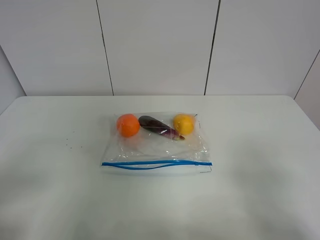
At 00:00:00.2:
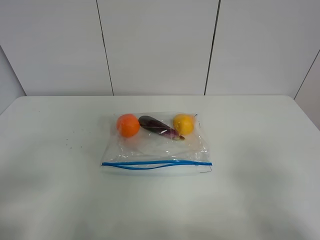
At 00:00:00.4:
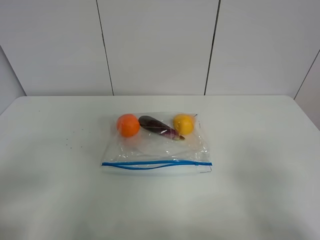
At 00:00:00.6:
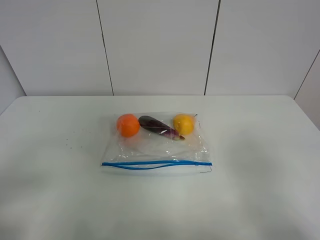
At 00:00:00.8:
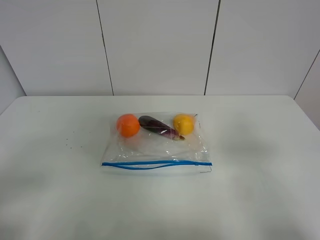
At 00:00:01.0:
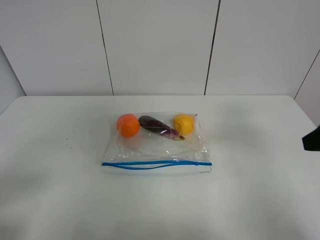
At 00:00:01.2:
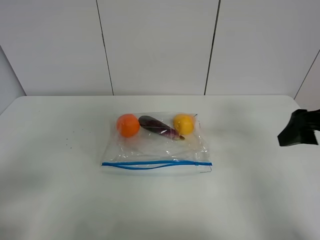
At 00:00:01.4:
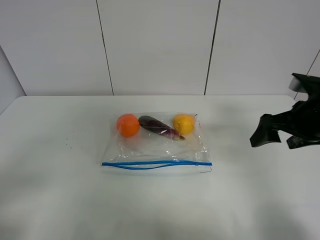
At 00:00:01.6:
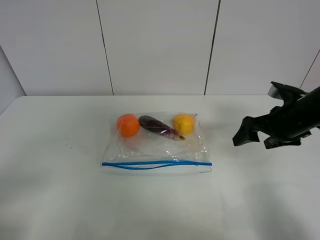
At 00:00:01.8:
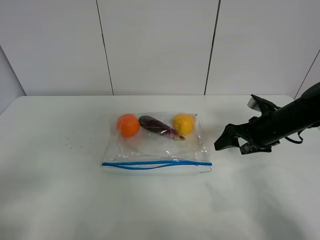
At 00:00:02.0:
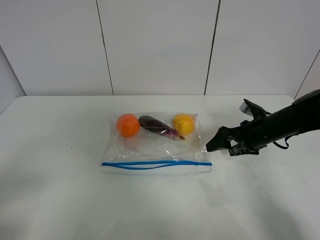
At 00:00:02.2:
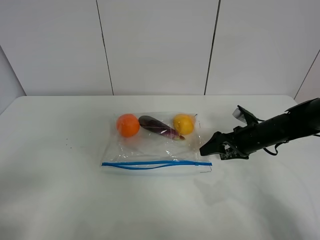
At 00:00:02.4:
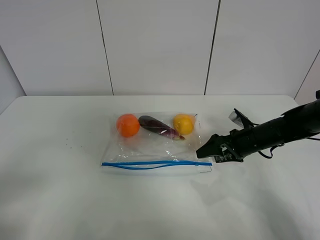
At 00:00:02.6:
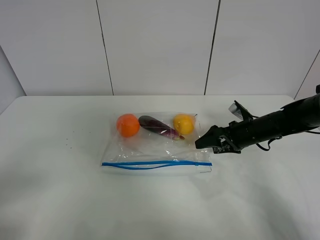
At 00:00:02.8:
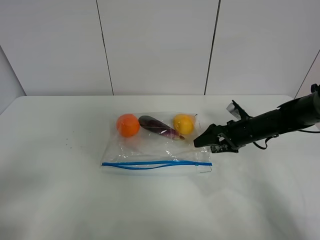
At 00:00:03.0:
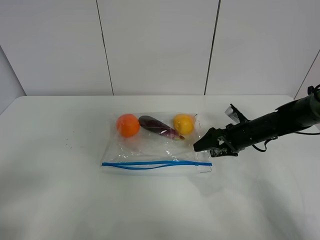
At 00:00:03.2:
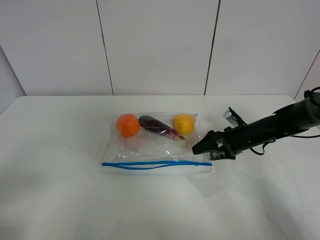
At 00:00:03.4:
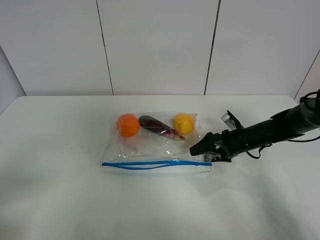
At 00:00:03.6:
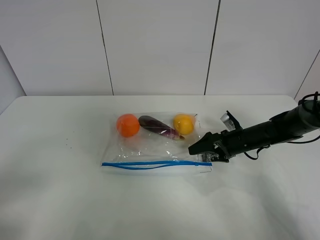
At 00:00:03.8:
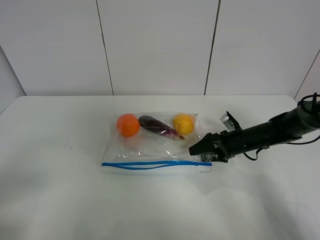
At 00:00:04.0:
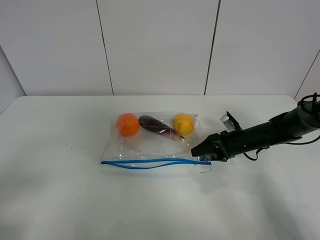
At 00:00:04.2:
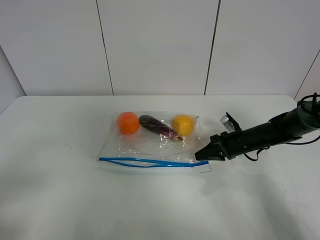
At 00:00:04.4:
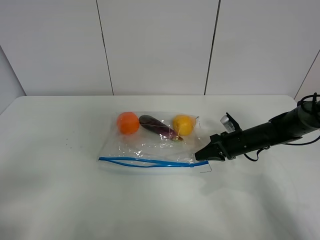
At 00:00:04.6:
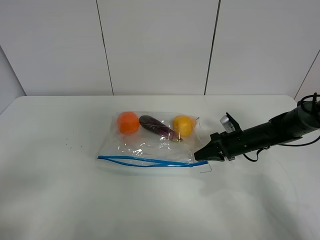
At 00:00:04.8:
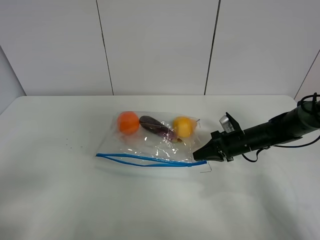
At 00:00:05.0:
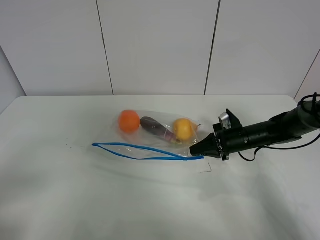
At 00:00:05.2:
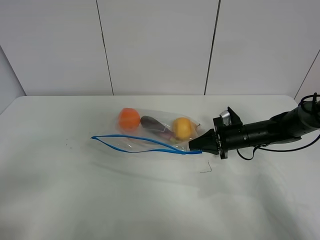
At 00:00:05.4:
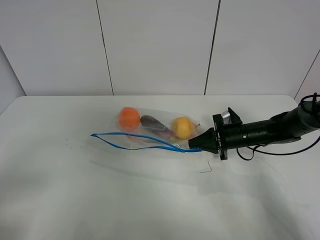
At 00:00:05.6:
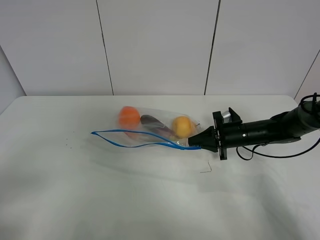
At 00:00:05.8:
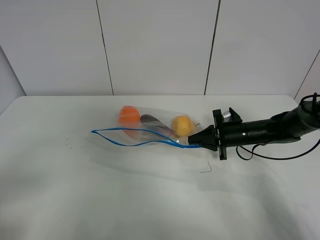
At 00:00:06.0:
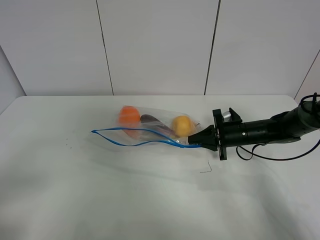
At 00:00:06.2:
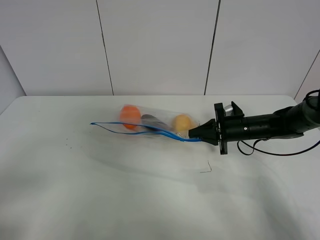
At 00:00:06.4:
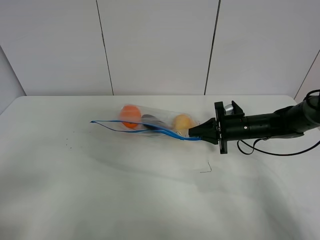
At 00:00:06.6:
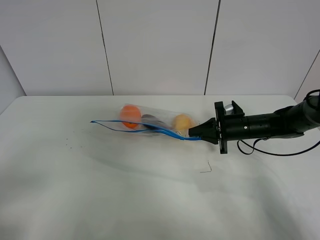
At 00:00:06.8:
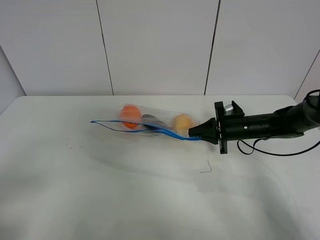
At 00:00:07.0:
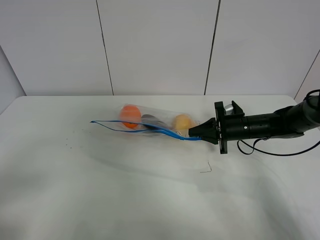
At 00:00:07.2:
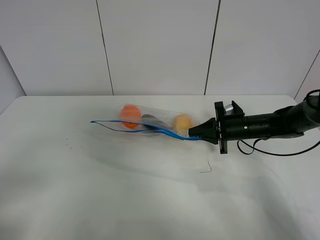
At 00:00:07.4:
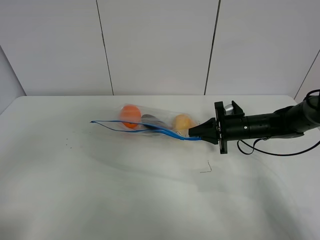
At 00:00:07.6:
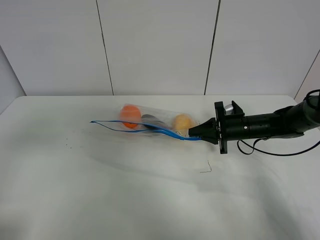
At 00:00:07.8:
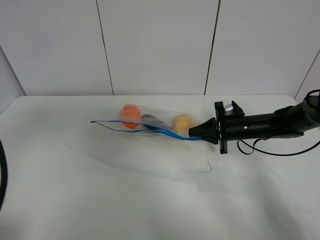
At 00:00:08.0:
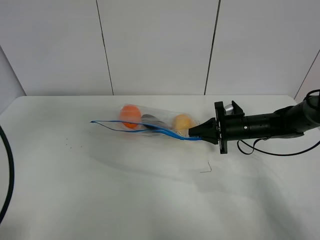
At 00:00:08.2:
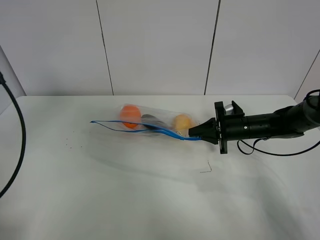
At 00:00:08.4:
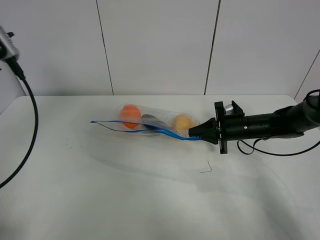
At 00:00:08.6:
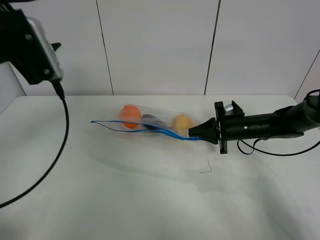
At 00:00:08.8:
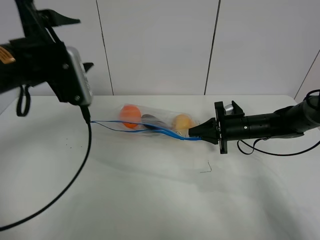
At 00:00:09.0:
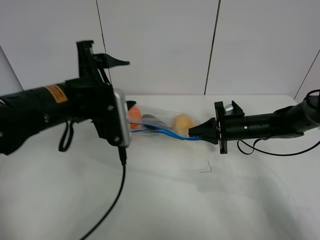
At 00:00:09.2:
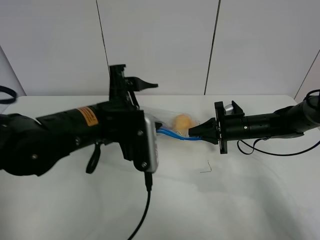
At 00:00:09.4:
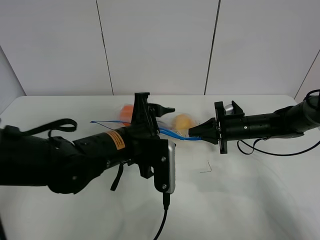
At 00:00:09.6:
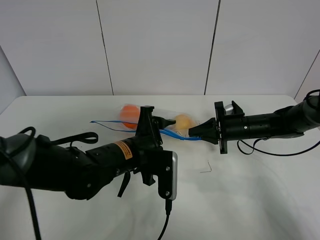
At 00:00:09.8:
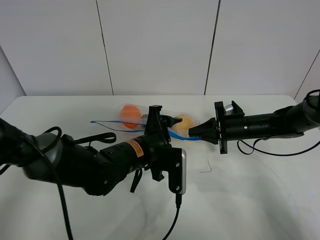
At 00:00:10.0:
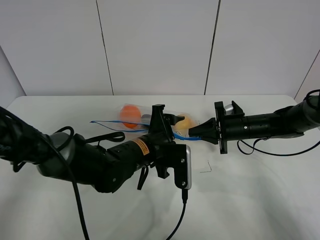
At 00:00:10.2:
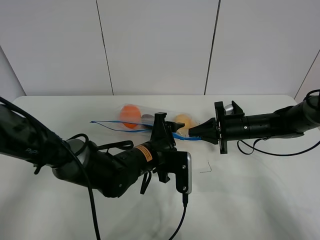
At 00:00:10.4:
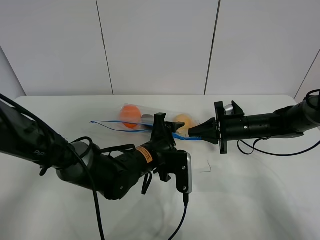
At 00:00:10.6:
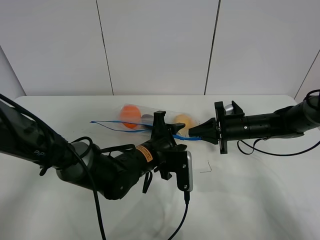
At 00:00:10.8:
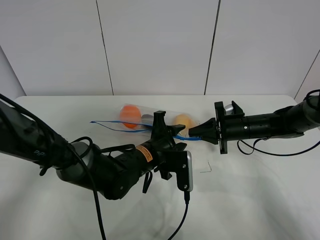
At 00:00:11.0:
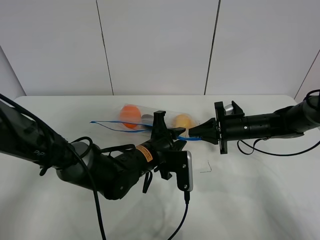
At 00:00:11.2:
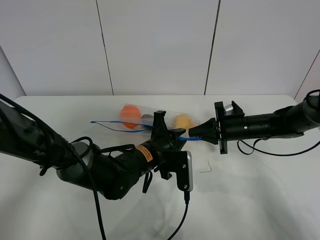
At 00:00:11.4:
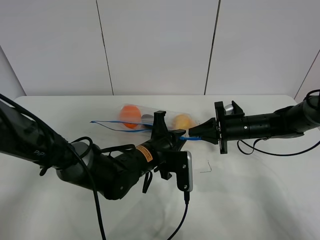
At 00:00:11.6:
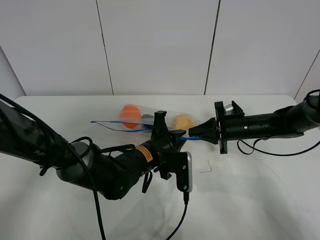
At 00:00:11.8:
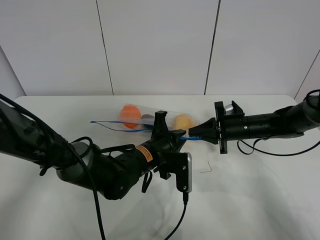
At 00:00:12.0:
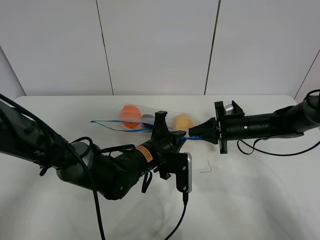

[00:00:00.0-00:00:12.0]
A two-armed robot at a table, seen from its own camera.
Step, 00:00:00.0 to 00:00:04.2: Grasp the fruit bag with right gripper.
Step, 00:00:04.4 to 00:00:06.8: Lift the fruit bag with your right gripper.
00:00:00.0 to 00:00:01.6: The right gripper shifts about 30 cm forward.
00:00:01.6 to 00:00:03.0: The right gripper moves downward and forward, about 15 cm.
00:00:03.0 to 00:00:04.4: The right gripper closes.
00:00:06.0 to 00:00:07.6: The left gripper is displaced upward and forward by roughly 10 cm.
00:00:07.6 to 00:00:09.0: The left gripper shifts approximately 25 cm to the right, forward and downward.
00:00:09.0 to 00:00:10.4: The left gripper heads downward and to the right, covering some 20 cm.
00:00:10.4 to 00:00:12.0: The left gripper closes its fingers.

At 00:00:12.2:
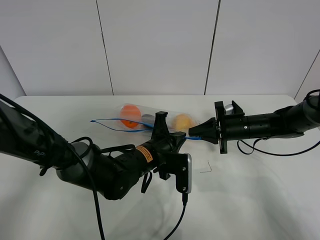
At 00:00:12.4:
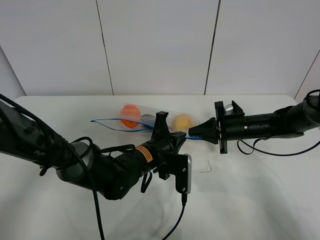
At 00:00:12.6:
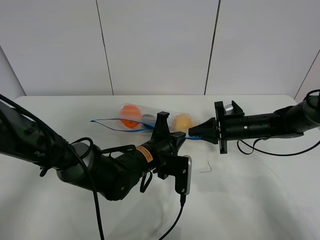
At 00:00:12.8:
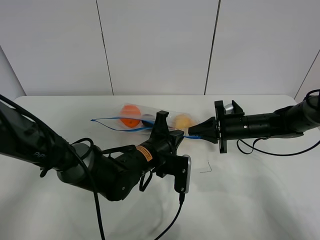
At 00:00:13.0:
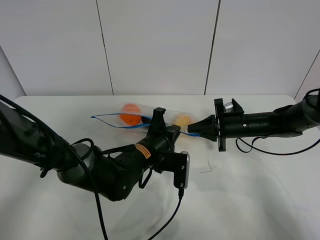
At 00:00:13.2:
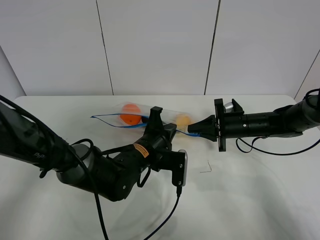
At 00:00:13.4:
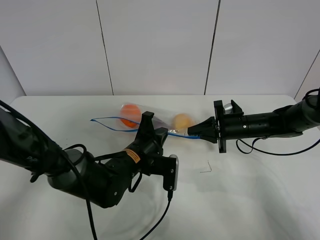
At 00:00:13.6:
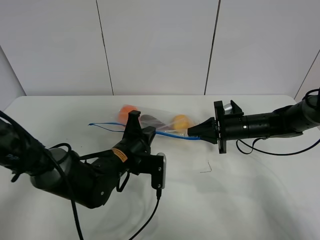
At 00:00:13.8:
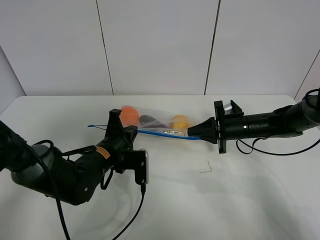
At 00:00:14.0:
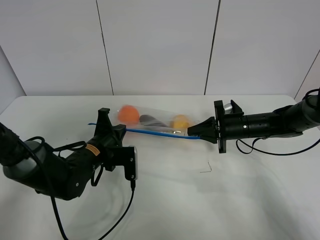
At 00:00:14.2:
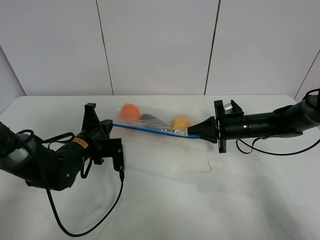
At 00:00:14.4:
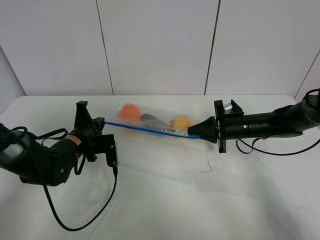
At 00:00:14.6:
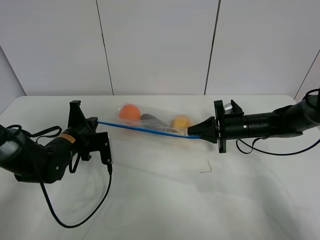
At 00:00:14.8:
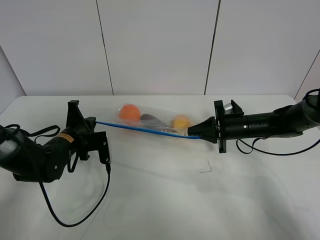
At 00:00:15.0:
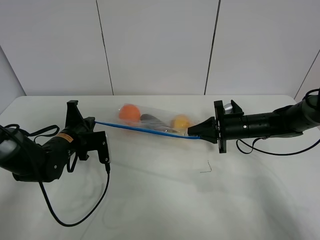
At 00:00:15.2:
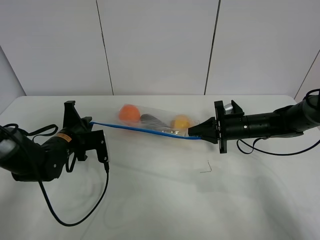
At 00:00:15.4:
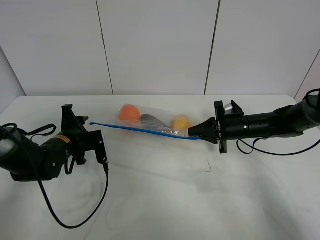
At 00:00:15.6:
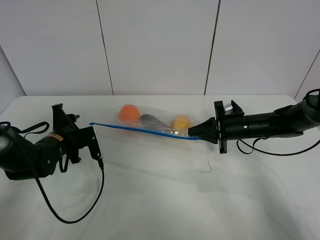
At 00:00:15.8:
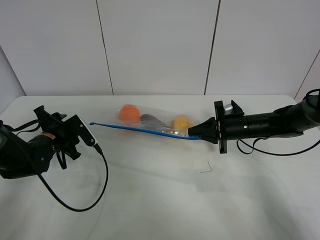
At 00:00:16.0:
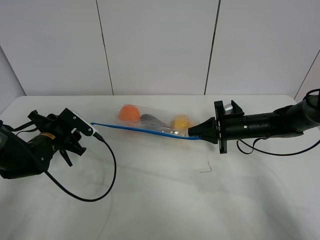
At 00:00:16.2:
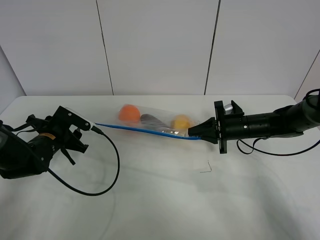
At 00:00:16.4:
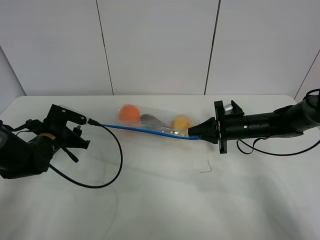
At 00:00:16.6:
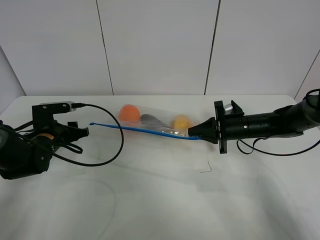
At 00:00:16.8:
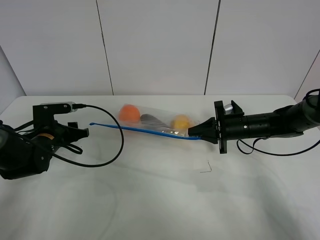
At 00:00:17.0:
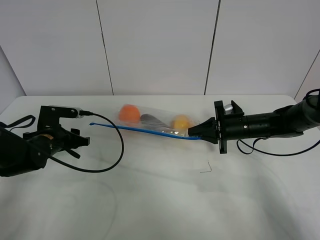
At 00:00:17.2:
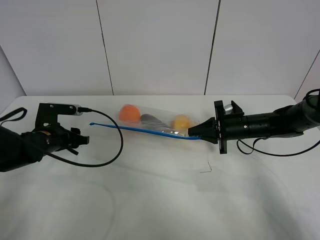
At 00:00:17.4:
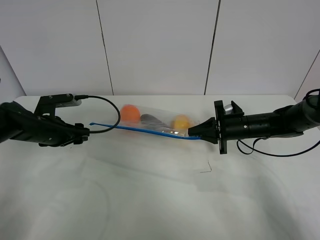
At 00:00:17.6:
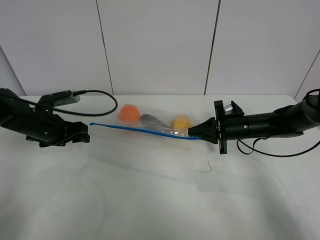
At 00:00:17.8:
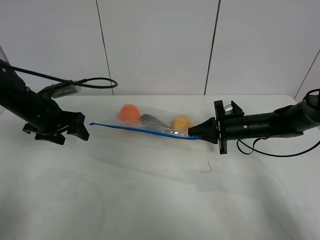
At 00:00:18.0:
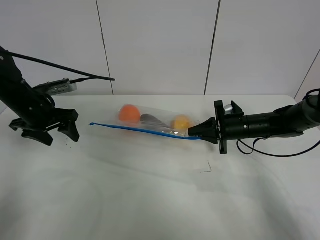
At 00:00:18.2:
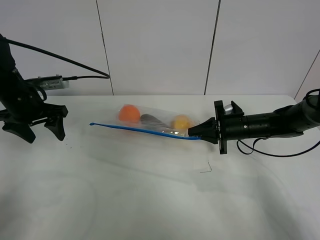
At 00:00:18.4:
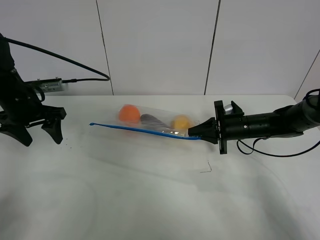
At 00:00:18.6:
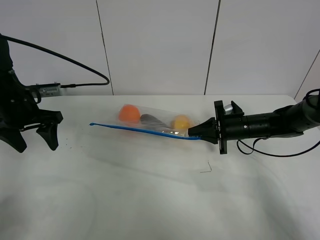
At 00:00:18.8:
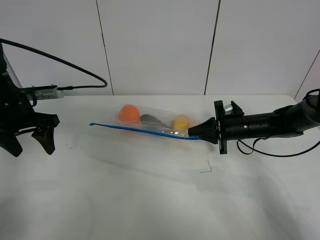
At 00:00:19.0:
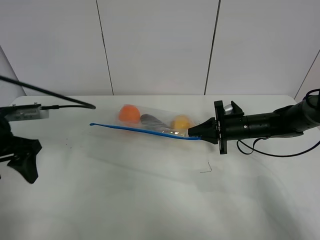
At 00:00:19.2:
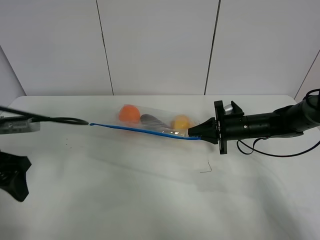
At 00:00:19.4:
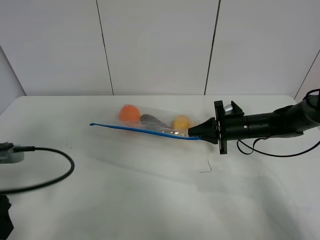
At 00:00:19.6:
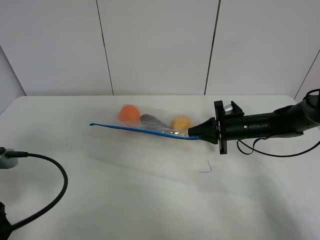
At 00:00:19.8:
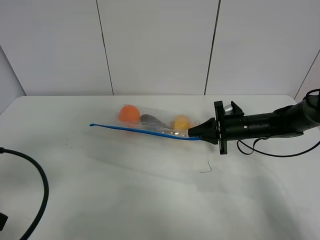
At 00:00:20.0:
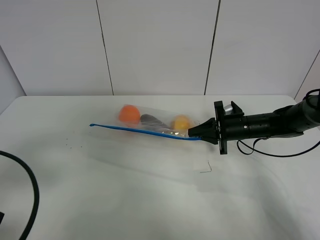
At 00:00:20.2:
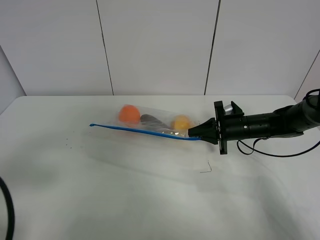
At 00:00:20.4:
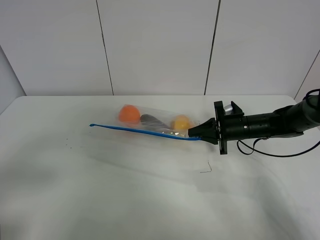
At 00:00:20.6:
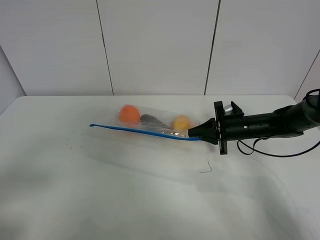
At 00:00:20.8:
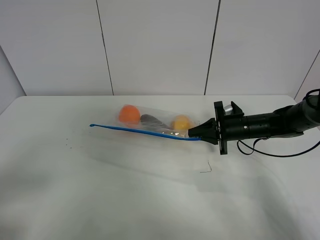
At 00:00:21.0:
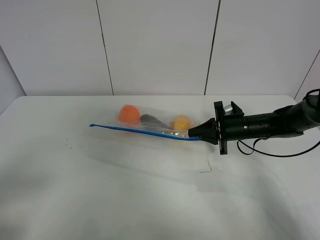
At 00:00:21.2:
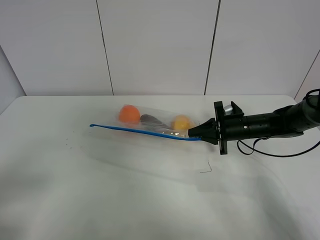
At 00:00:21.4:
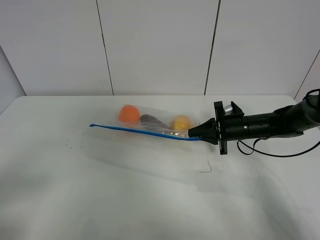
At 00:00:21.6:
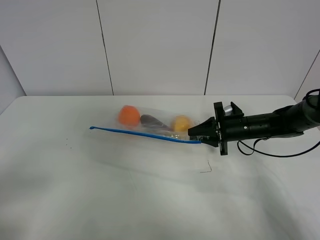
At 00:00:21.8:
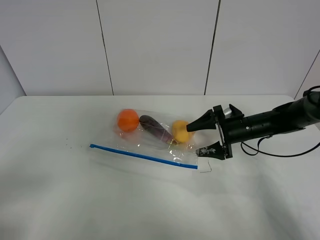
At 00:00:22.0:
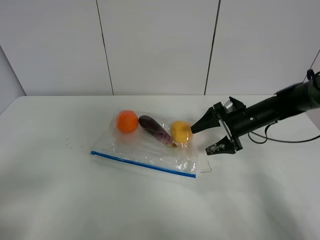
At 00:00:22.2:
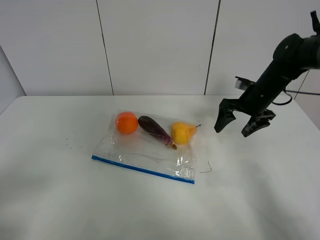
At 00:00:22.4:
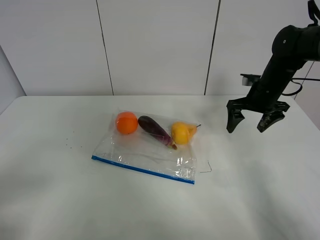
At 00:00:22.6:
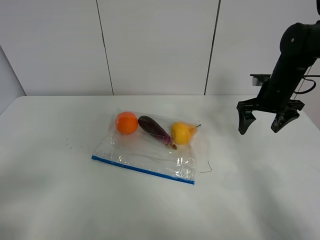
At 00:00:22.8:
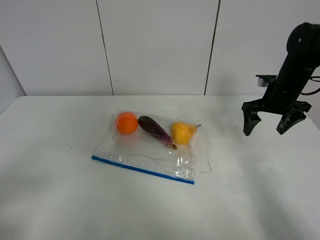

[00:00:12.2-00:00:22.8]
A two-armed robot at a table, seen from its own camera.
Step, 00:00:12.2 to 00:00:15.4: Pull the fruit bag with left gripper.
00:00:12.2 to 00:00:13.8: The left gripper is displaced to the left by roughly 10 cm.
00:00:13.8 to 00:00:15.2: The left gripper is displaced to the left by some 10 cm.
00:00:15.2 to 00:00:16.8: The left gripper opens.
00:00:16.8 to 00:00:18.2: The left gripper shifts approximately 10 cm upward.
00:00:18.2 to 00:00:19.8: The left gripper travels backward by approximately 25 cm.
00:00:19.8 to 00:00:21.2: The left gripper shifts approximately 10 cm backward.
00:00:21.2 to 00:00:22.8: The right gripper goes about 15 cm upward and to the right, and opens up.
